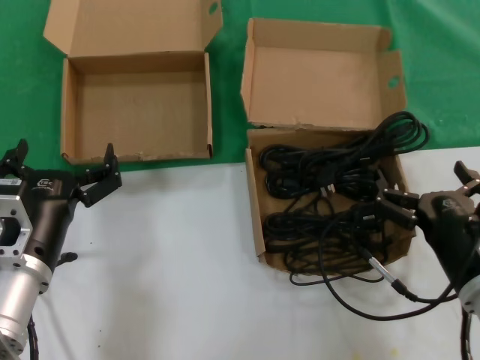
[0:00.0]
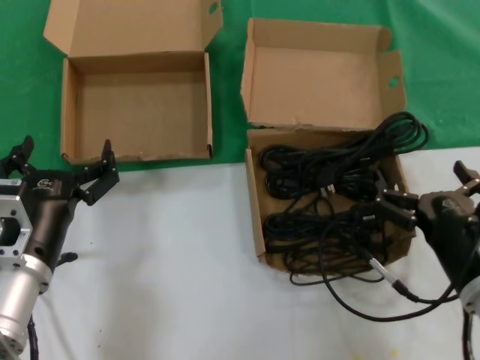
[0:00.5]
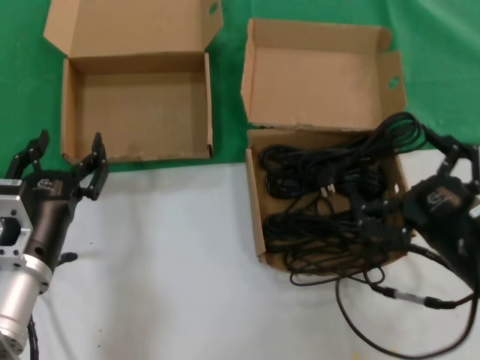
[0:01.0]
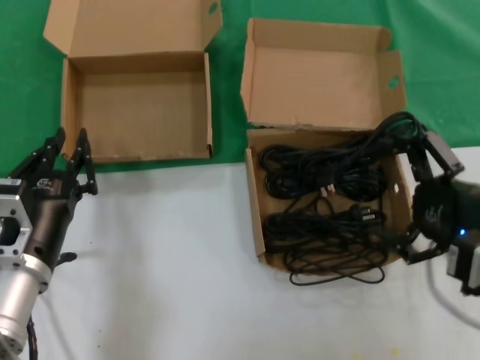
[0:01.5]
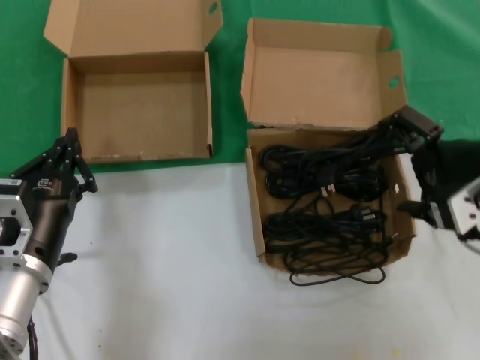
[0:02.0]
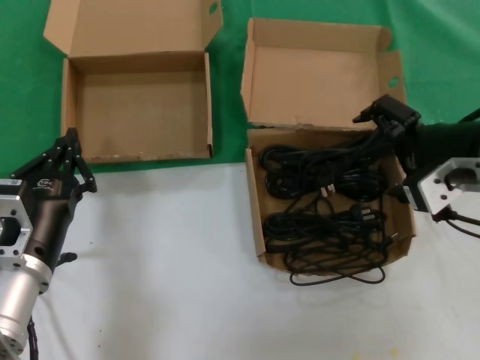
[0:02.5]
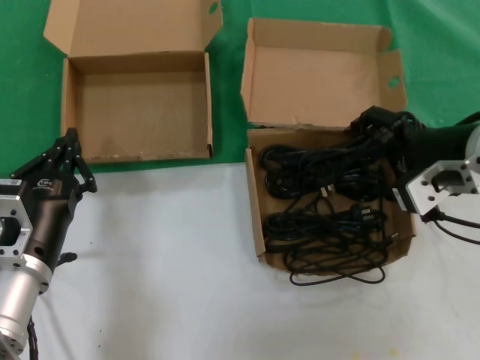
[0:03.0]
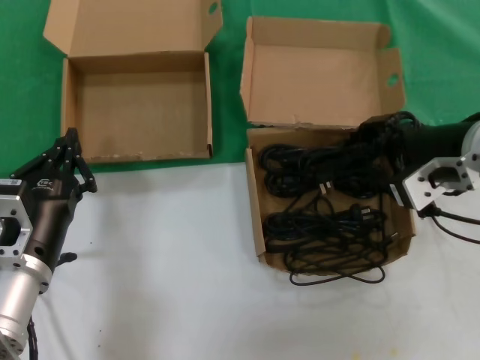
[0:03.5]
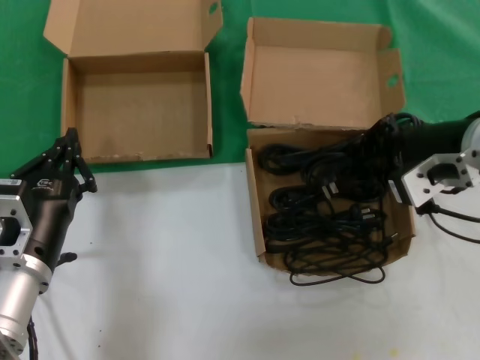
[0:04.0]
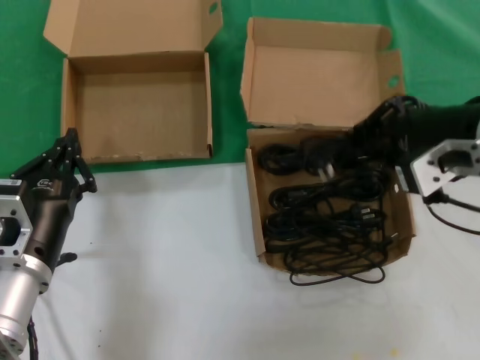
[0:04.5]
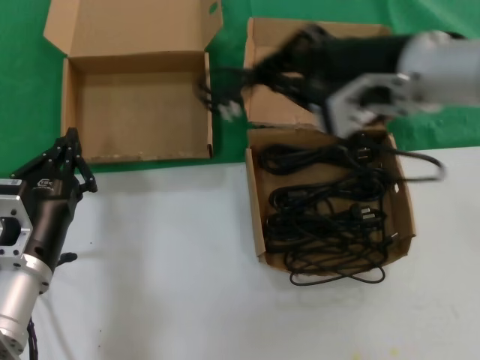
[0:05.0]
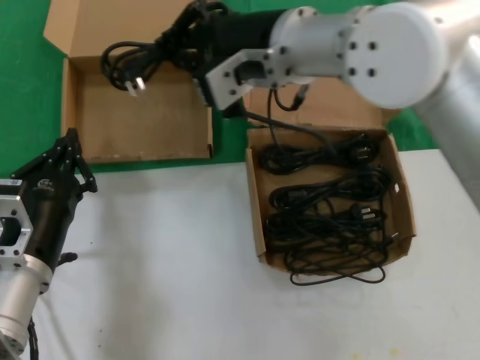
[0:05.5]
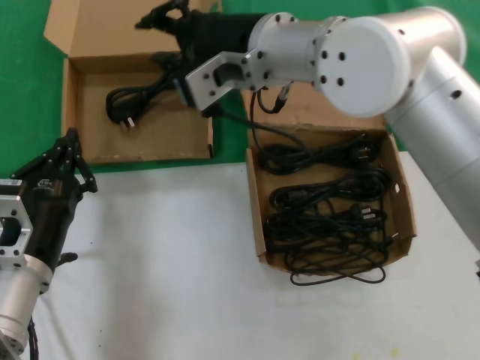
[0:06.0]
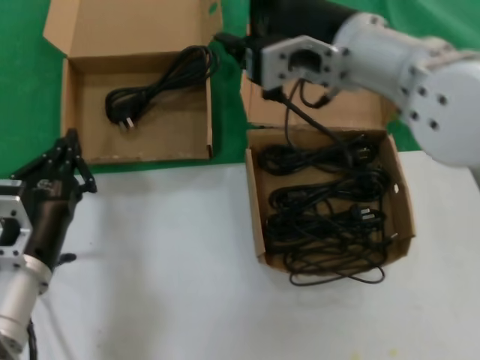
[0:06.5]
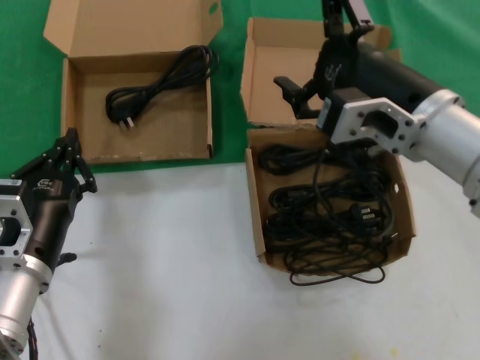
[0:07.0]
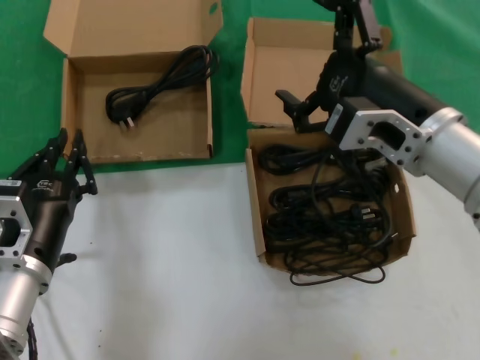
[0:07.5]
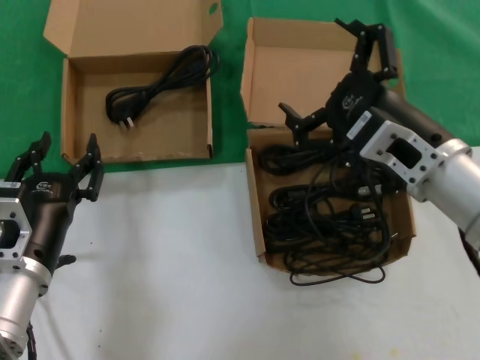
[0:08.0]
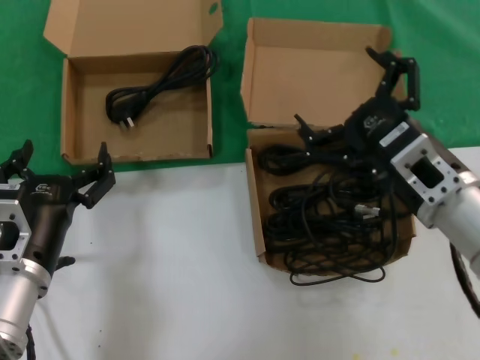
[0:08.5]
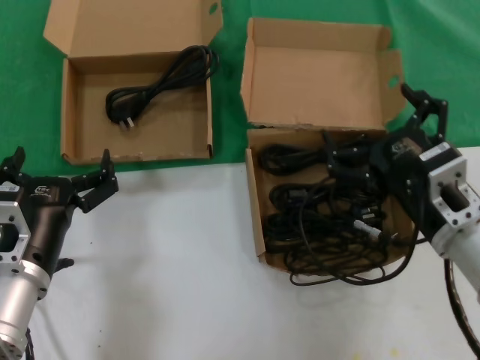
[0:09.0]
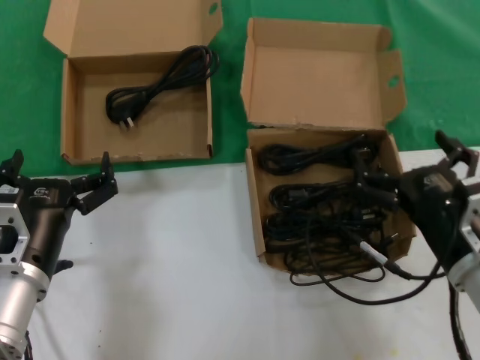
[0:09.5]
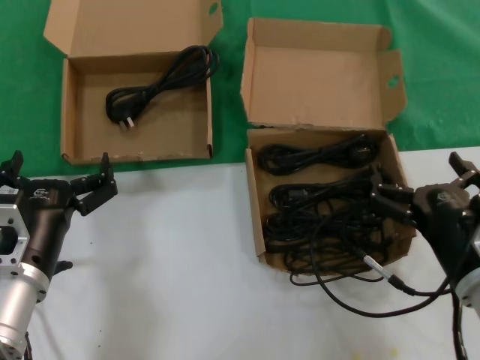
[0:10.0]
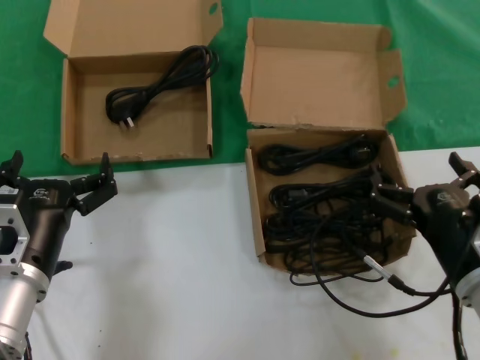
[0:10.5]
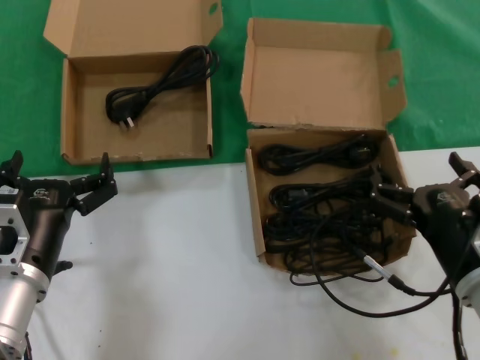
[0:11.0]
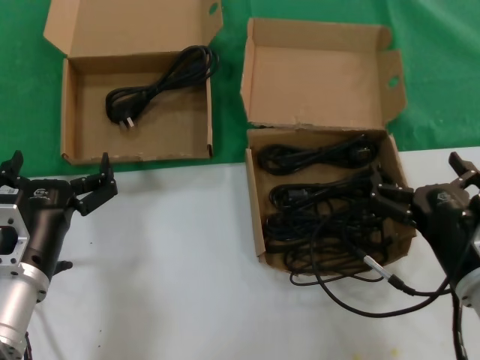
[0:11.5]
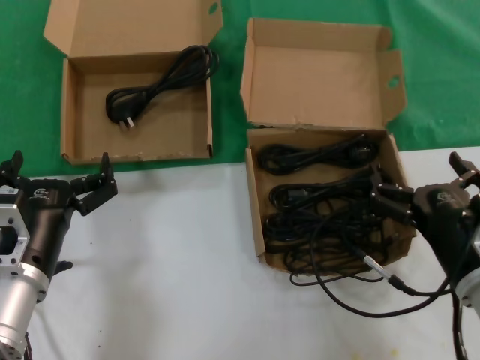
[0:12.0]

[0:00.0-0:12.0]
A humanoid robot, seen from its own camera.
Task of the whole recording: take the parts from the box containing them and put them into an empty box.
Step, 0.0 to 3.5 s: Grasp the data cable.
Step, 4.0 to 5.5 s: Place the data cable in the another box.
0.0 to 2.0 s: The right hand shifts approximately 20 cm upward.
2.0 to 4.0 s: The right hand shifts approximately 5 cm forward.
4.0 to 6.0 s: The right hand travels to the left by some 20 cm.
6.0 to 8.0 s: The right hand shifts roughly 20 cm to the right, downward and backward.
8.0 to 10.0 s: The right hand is displaced downward, to the right and backward by approximately 15 cm.
10.0 to 12.0 s: Both hands stay about where they are.

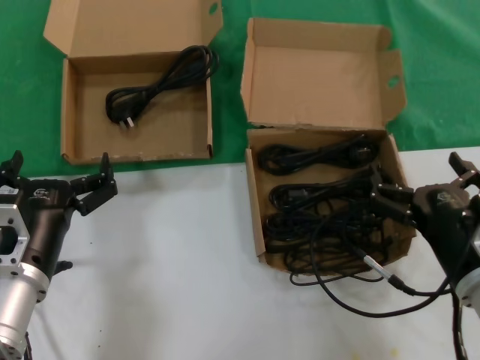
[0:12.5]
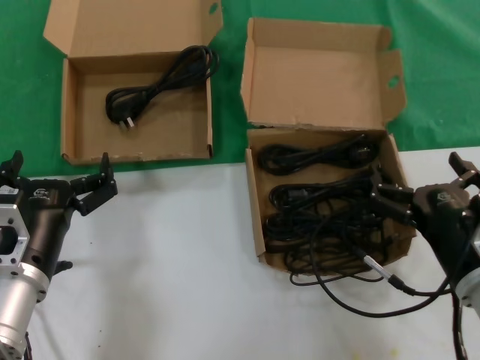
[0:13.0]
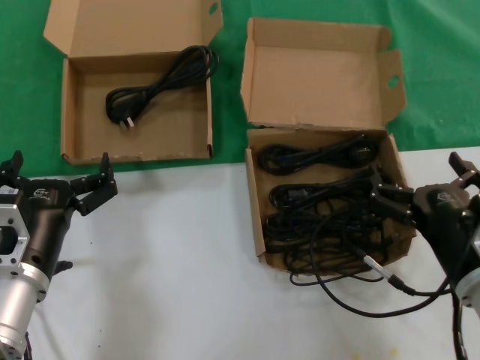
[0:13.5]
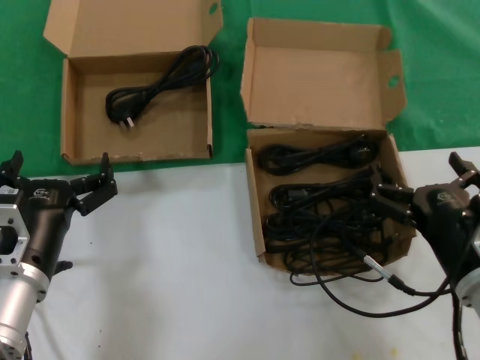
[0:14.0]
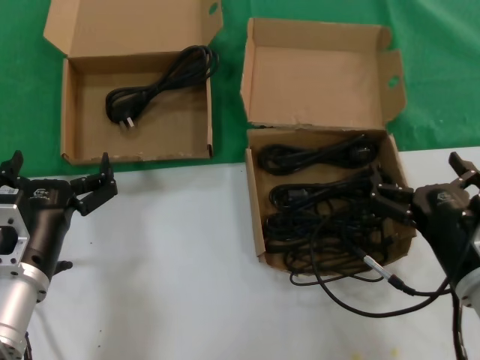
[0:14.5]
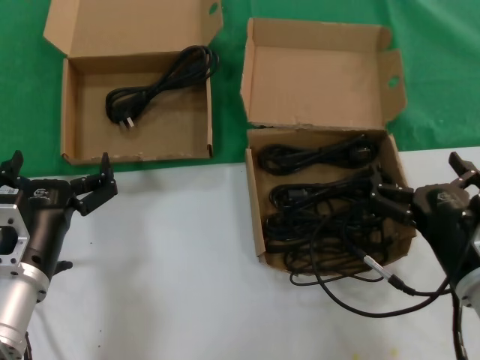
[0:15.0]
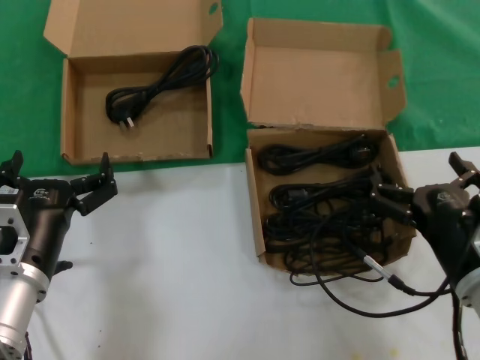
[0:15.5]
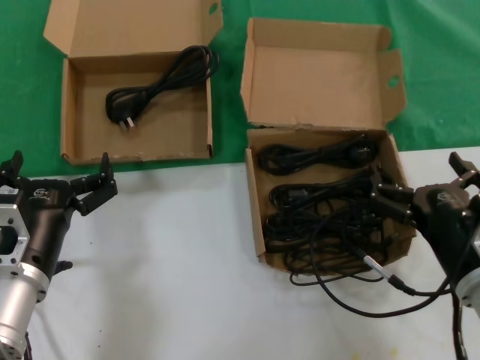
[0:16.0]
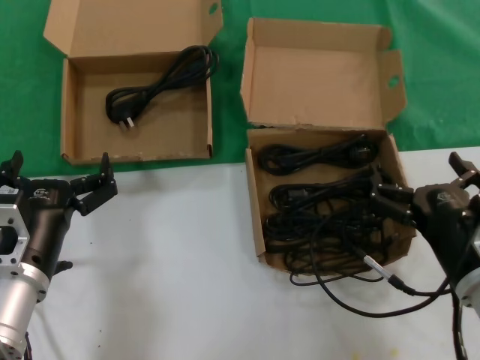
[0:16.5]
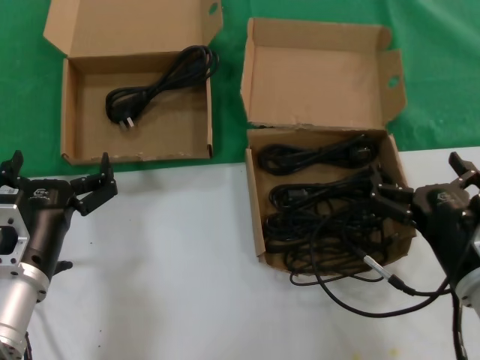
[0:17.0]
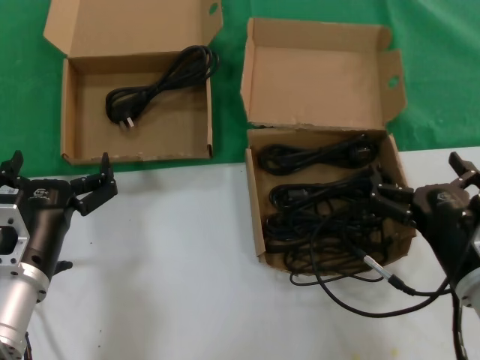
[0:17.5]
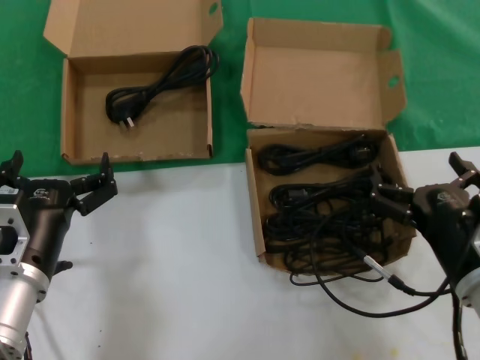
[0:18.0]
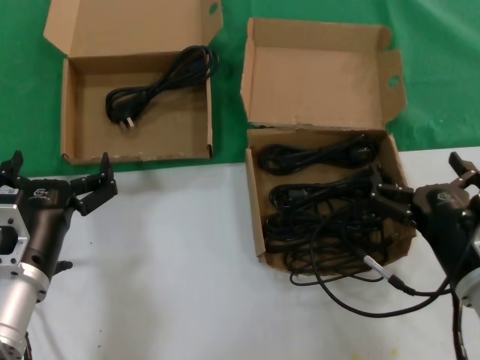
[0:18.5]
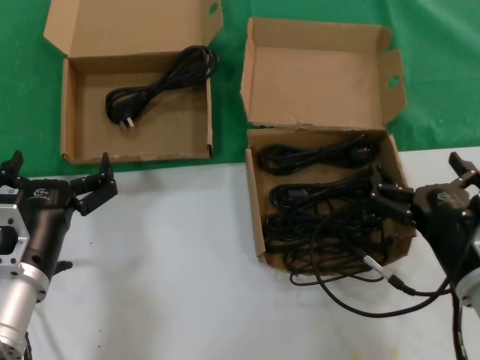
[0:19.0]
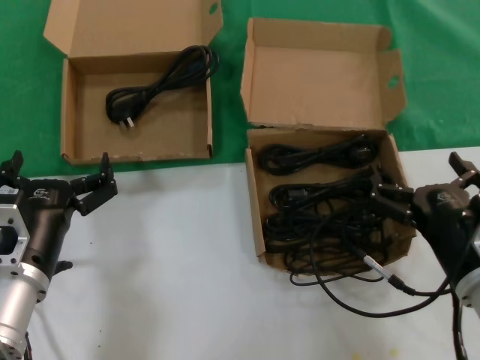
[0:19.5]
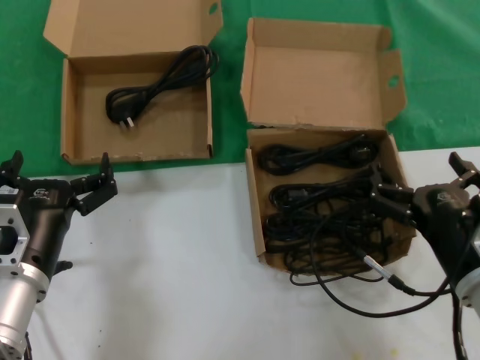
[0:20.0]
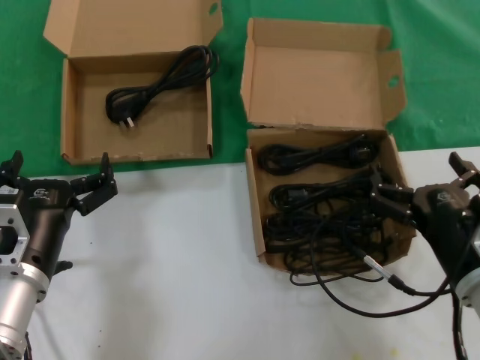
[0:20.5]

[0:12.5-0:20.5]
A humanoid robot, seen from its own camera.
Task of the whole recording: take the parts from the box containing them and put them into an empty box.
12.5 to 20.5 s: The two hands keep their place.

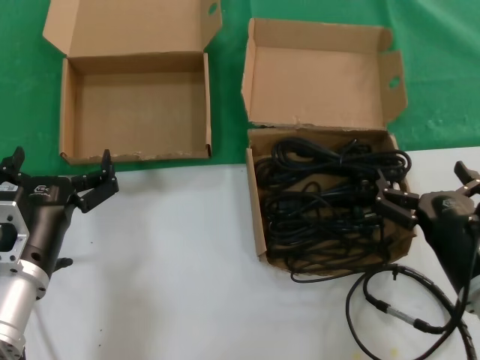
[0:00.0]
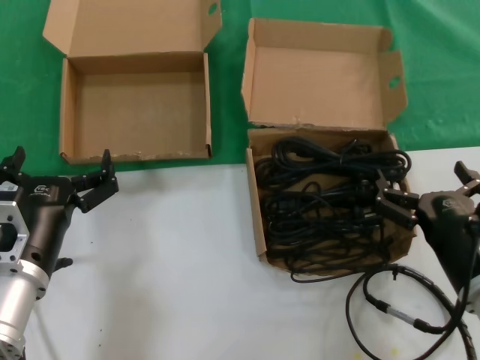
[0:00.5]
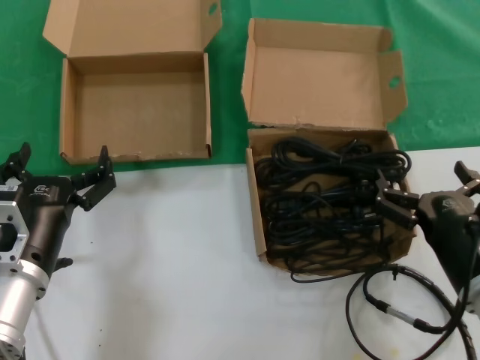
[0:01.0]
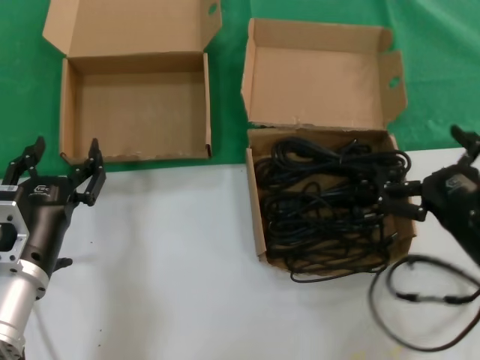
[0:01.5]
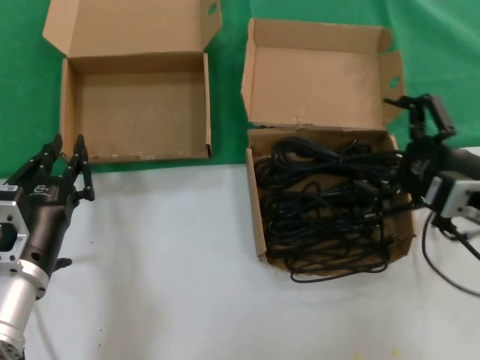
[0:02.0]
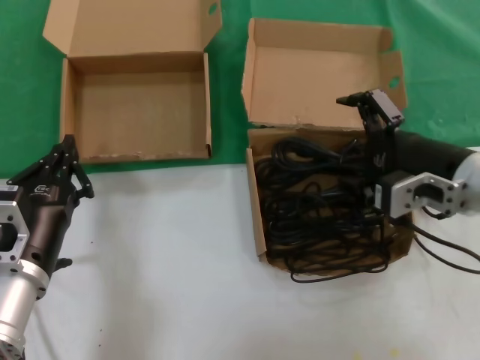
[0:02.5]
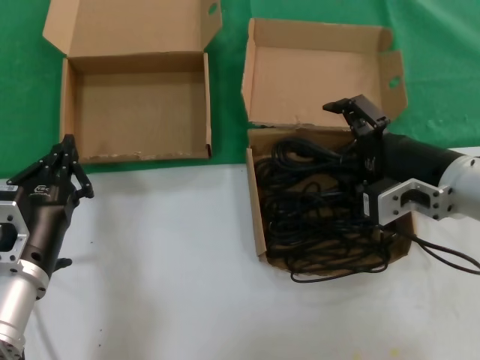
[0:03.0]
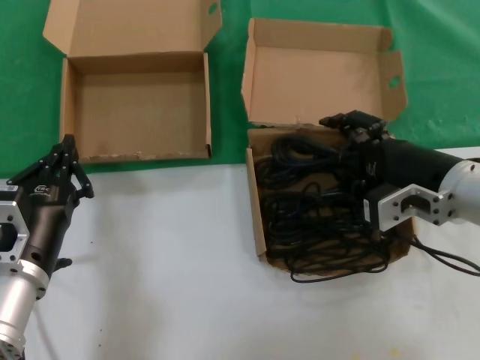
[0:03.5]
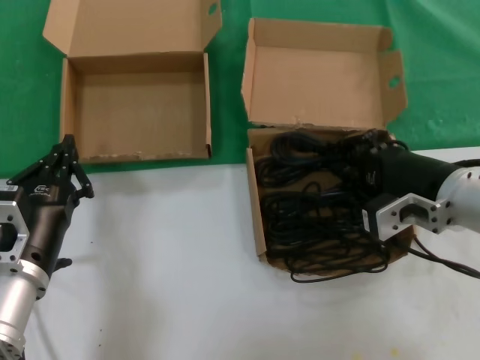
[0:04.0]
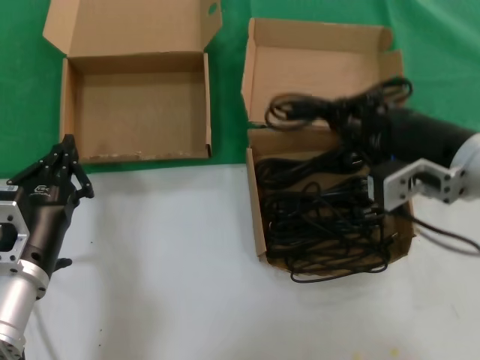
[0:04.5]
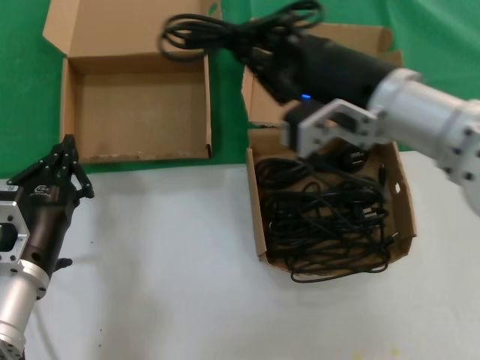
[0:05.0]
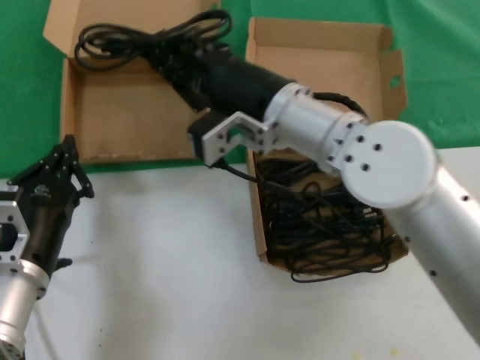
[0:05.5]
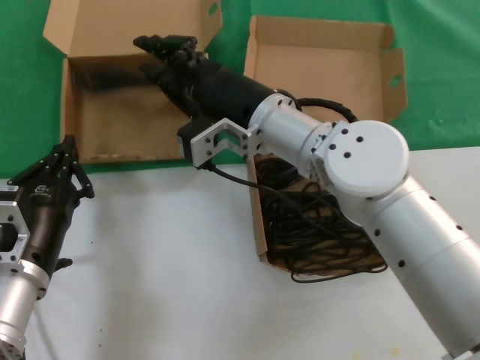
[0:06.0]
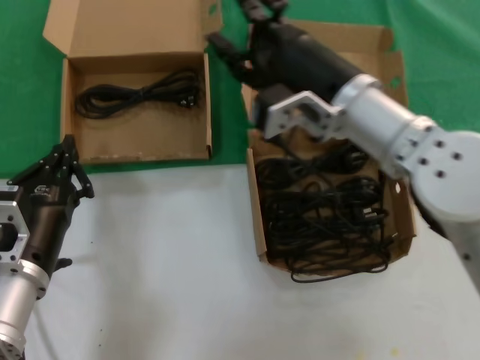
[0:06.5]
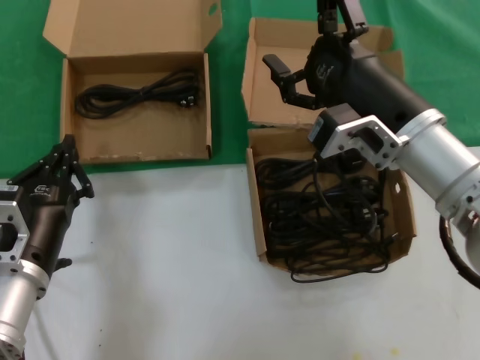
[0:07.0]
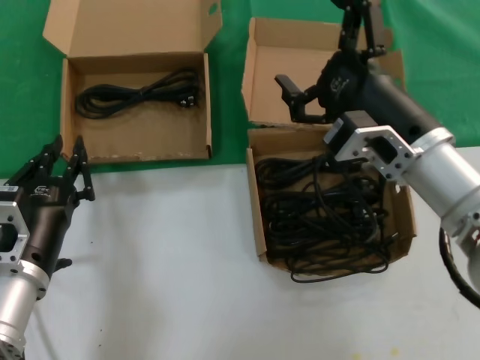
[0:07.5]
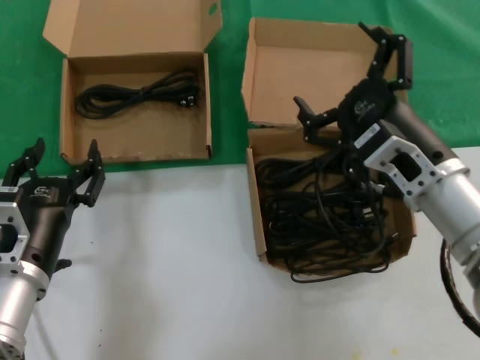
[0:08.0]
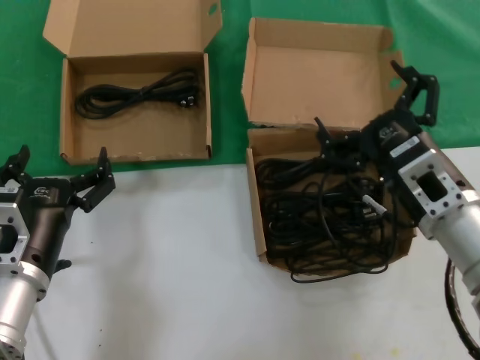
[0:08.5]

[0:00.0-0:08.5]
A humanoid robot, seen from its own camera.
Task of the whole recording: take the parts from the box containing them and put them into an empty box.
Step, 0.0 to 4.0 s: Grasp the data cable.
Step, 4.5 to 6.0 s: Place the data cable in the another box.
0.0 to 2.0 s: The right hand travels upward by roughly 10 cm.
2.0 to 4.0 s: The right hand travels to the left by roughly 5 cm.
4.0 to 6.5 s: The right hand goes about 15 cm to the left and upward.
6.5 to 8.5 s: The right hand travels downward, to the right and backward by roughly 15 cm.
